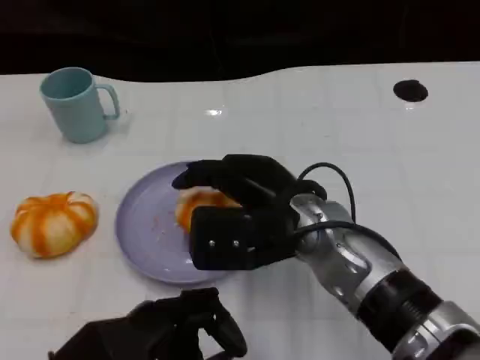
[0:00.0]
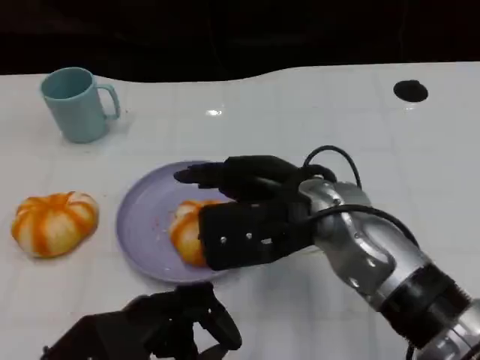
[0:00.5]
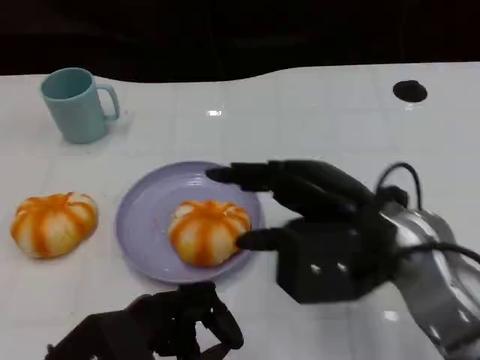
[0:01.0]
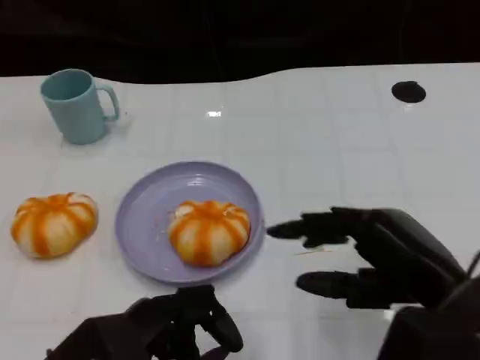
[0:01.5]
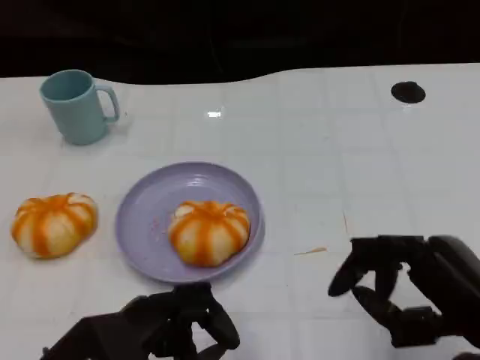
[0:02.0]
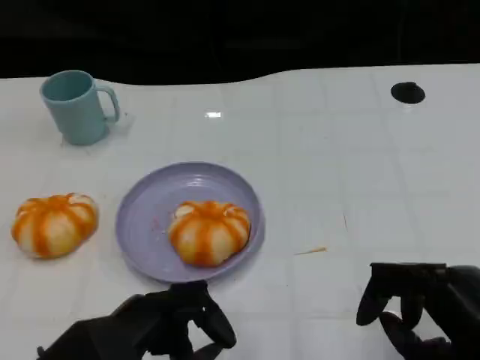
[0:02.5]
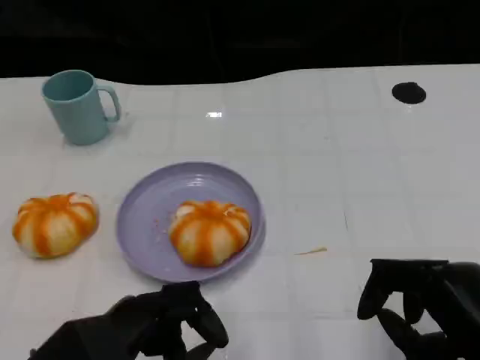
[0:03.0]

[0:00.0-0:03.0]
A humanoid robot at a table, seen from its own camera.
Task of the whole recording: Grasp the bread from the table and place it into the plate.
0:00.0 to 0:01.5: The right hand goes roughly 15 cm to the right and backward.
0:01.5 to 0:03.0: The right hand moves some 5 cm.
